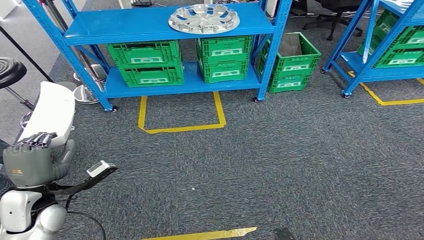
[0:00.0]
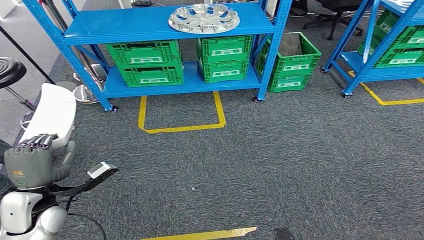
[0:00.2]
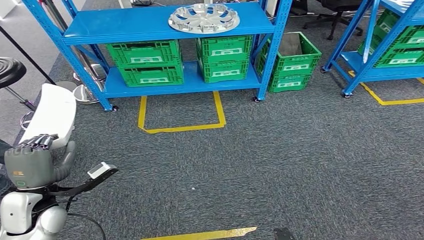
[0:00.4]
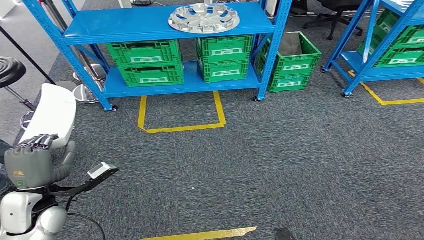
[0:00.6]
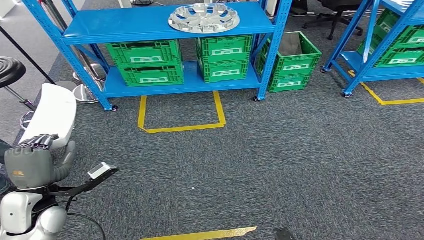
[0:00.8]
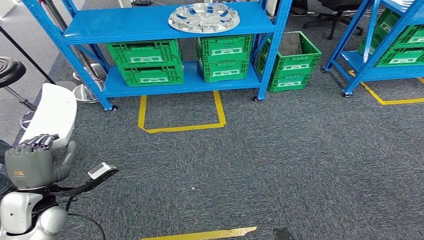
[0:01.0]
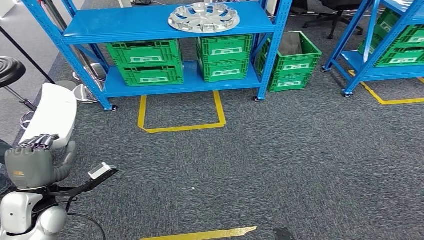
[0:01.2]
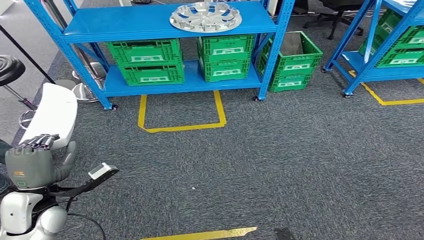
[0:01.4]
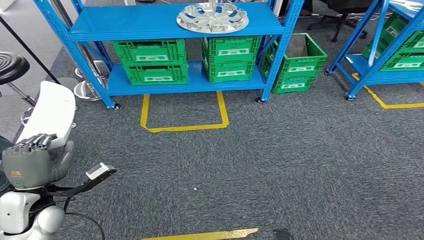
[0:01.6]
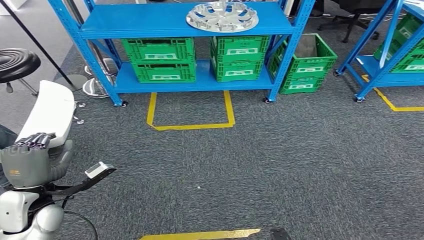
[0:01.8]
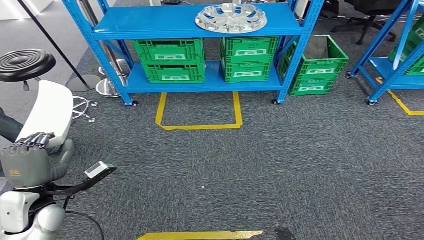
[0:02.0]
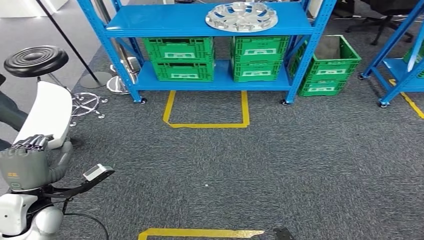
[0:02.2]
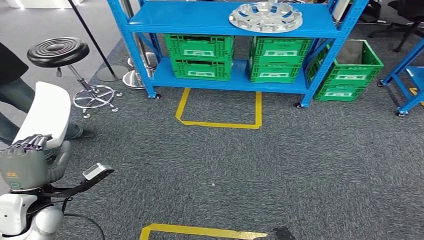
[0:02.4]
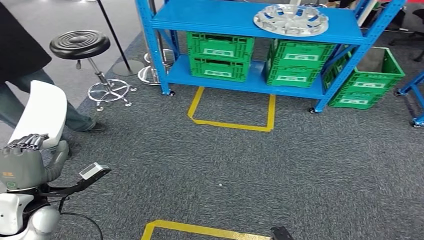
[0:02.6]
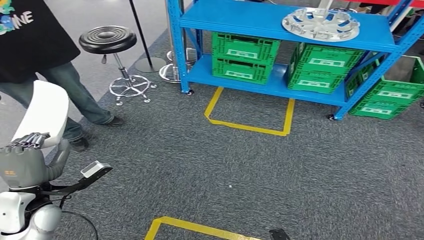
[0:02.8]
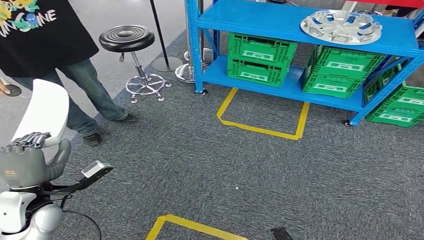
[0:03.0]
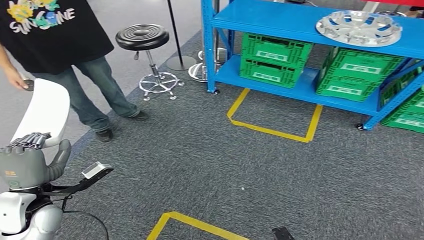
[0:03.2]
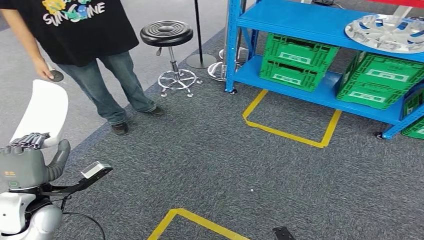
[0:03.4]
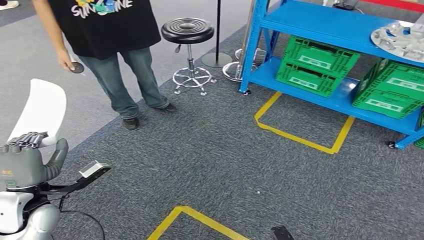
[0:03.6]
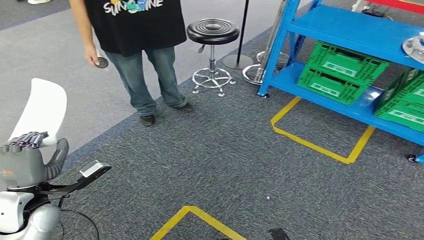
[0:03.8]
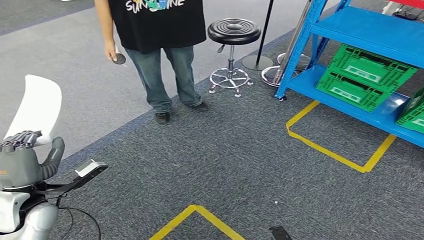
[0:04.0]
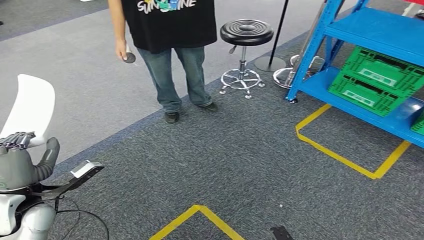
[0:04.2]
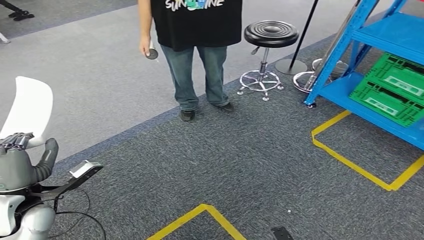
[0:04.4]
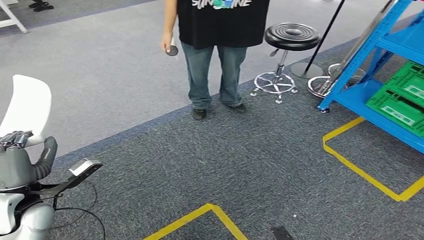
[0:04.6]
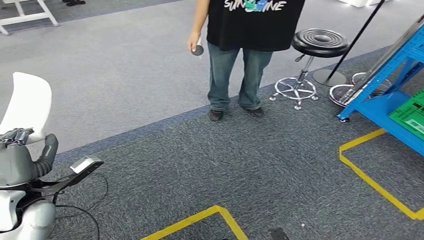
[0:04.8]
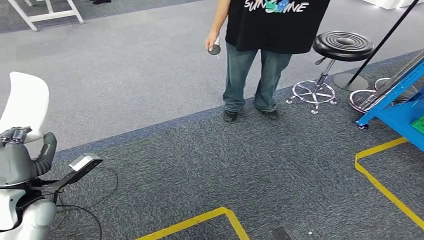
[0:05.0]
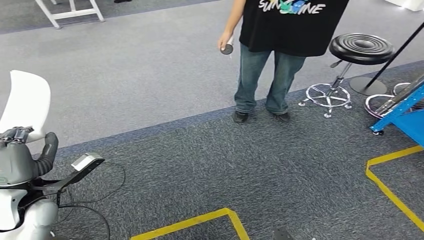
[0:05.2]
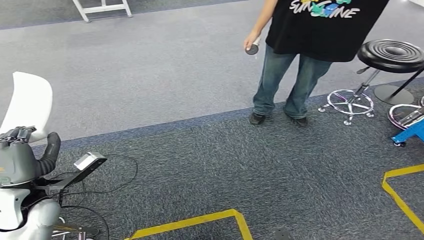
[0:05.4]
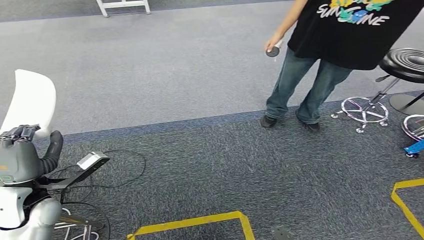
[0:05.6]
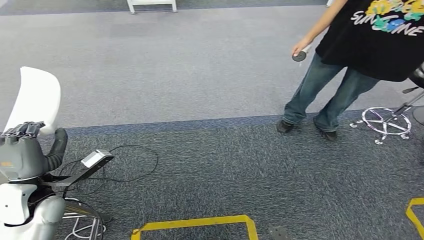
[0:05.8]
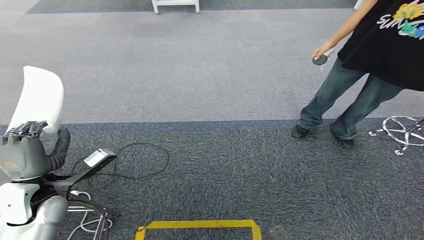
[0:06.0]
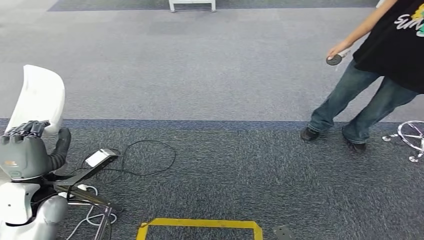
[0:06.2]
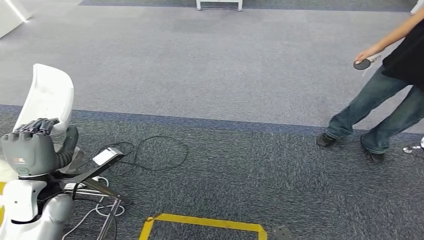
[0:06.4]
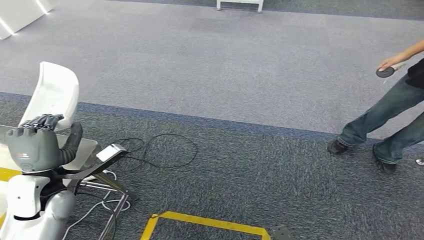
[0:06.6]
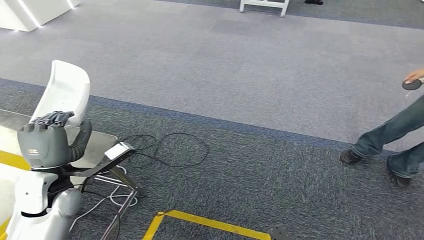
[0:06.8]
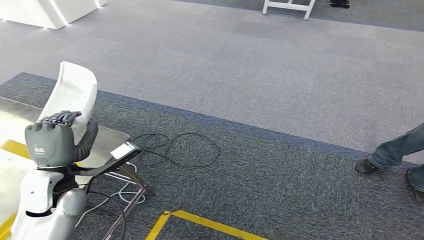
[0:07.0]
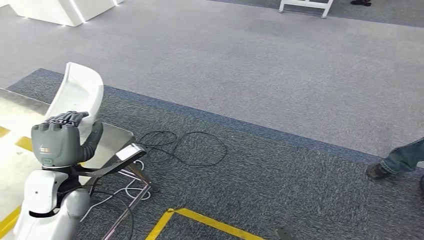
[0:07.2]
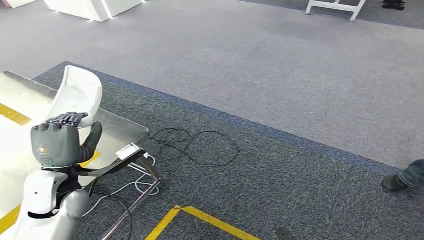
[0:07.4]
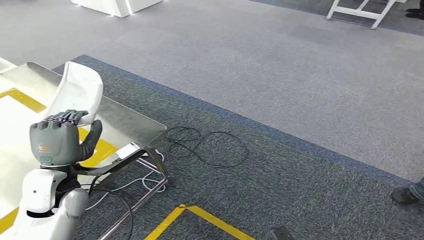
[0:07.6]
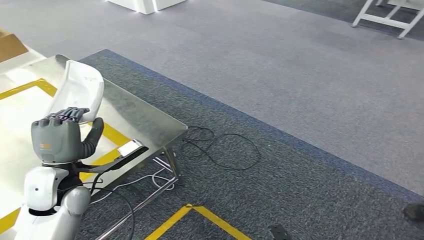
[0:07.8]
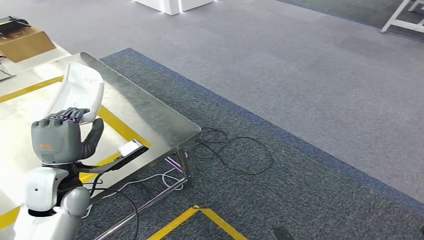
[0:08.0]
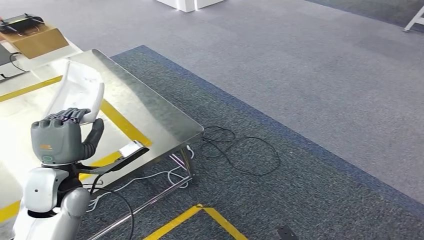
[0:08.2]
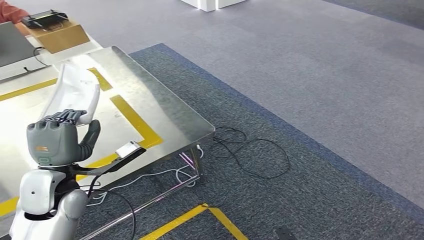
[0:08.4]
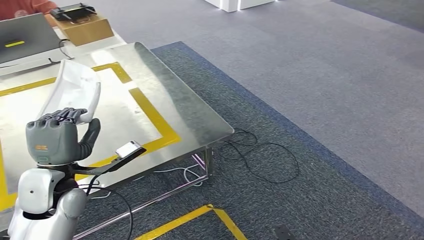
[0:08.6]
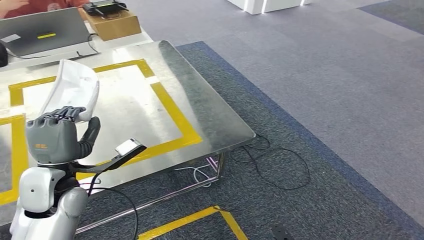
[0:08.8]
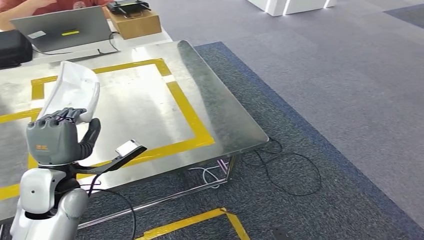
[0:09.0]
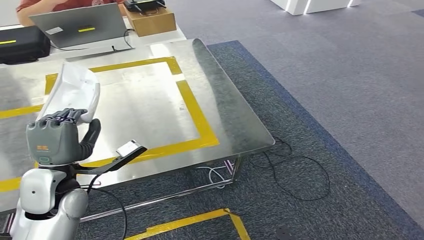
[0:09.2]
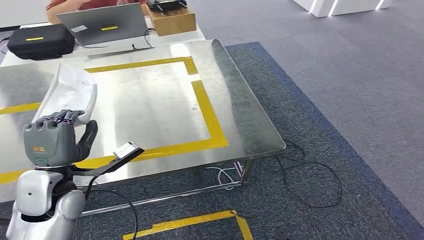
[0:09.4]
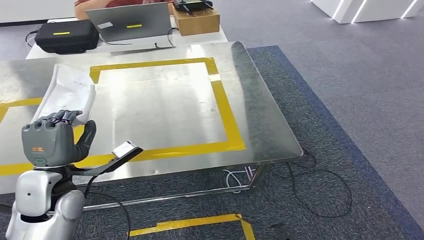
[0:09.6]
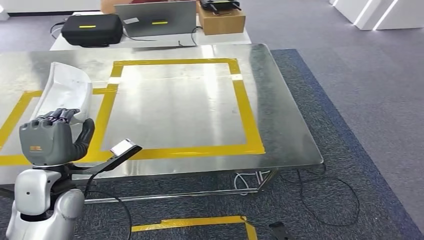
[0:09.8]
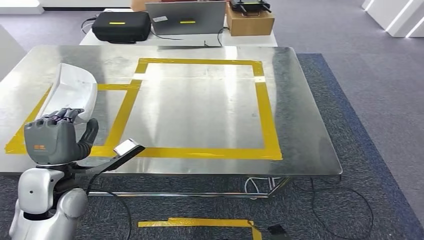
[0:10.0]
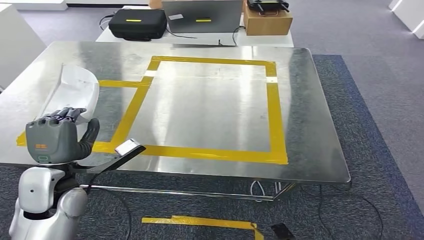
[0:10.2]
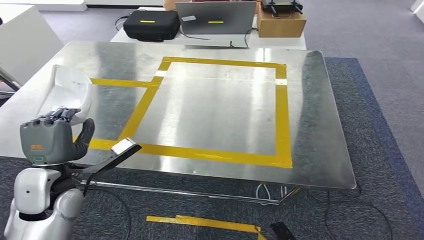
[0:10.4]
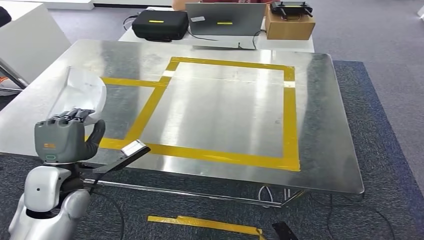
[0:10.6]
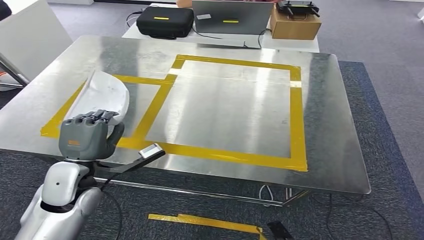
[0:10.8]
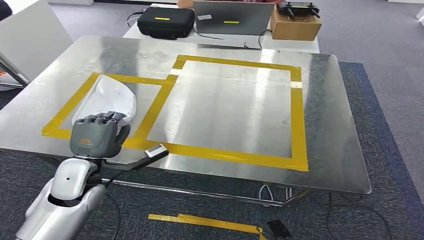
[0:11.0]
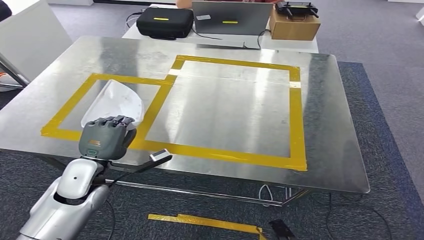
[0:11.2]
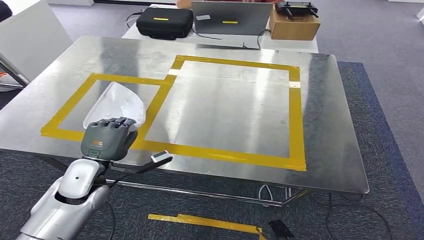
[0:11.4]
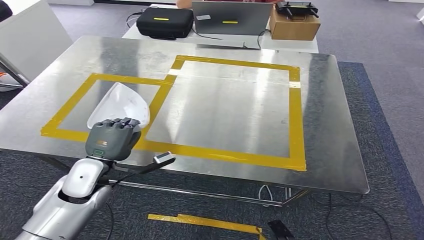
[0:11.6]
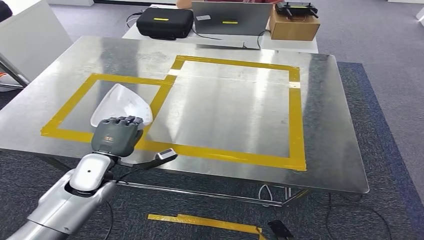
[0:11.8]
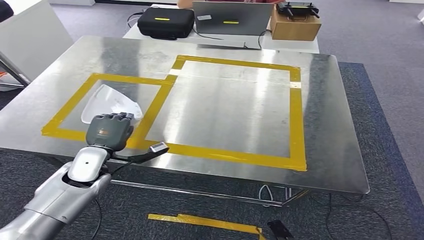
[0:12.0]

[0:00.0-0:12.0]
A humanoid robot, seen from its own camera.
Step, 0:00.0 to 0:08.0: Move the small component to the workbench.
0:00.0 to 0:01.6: Both hands stay about where they are.

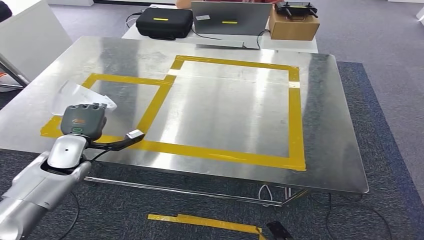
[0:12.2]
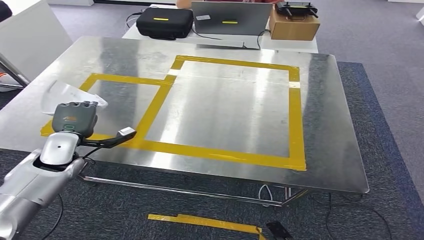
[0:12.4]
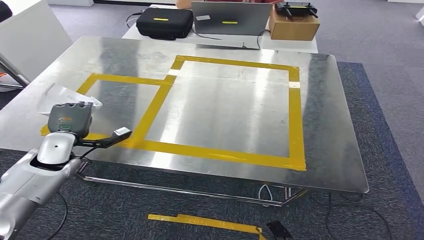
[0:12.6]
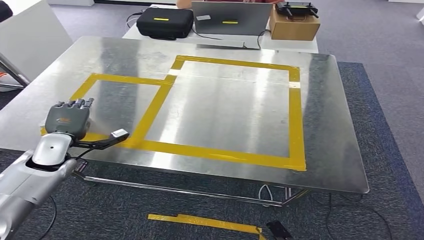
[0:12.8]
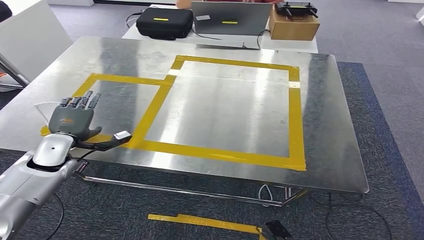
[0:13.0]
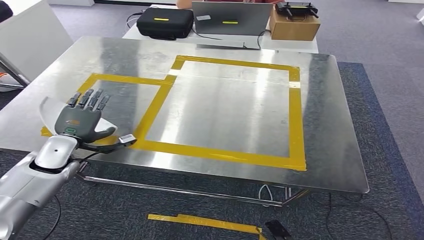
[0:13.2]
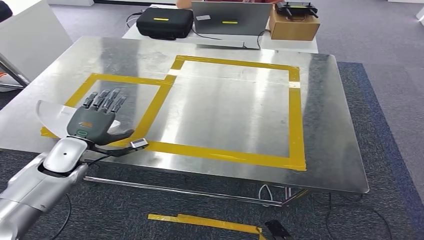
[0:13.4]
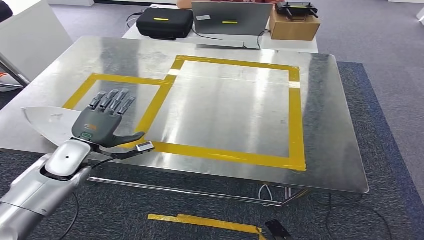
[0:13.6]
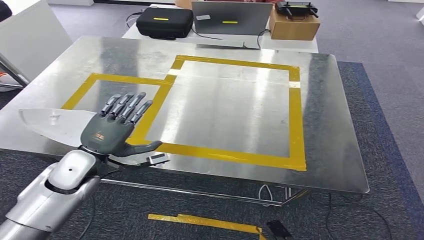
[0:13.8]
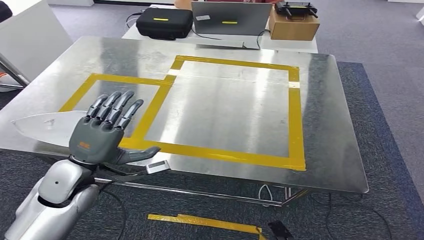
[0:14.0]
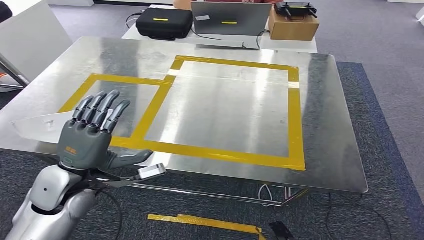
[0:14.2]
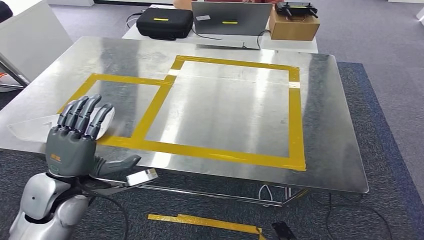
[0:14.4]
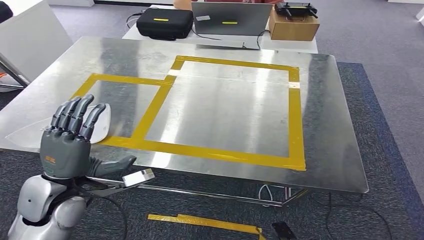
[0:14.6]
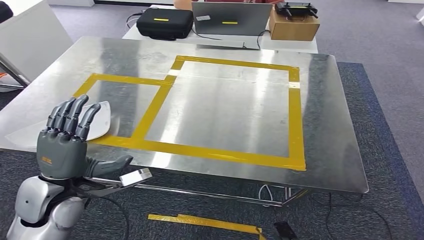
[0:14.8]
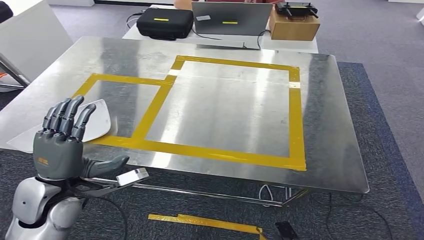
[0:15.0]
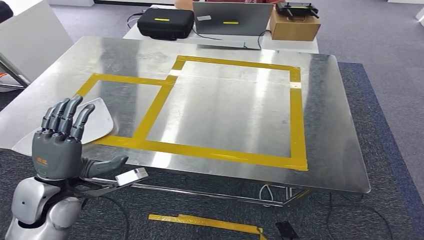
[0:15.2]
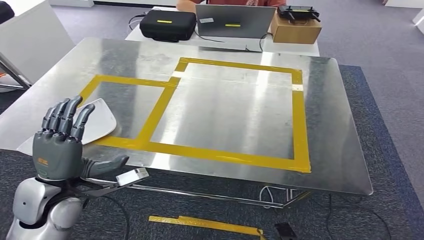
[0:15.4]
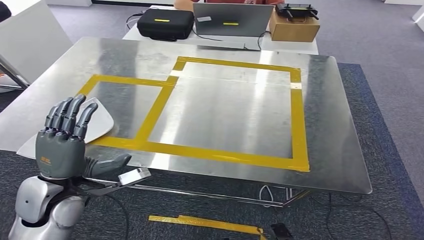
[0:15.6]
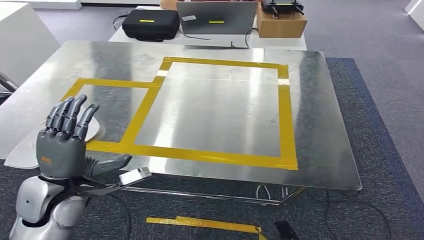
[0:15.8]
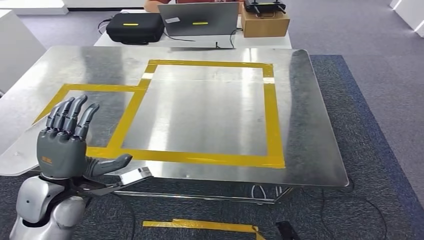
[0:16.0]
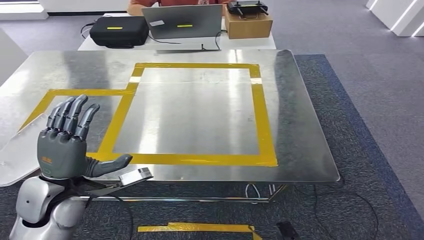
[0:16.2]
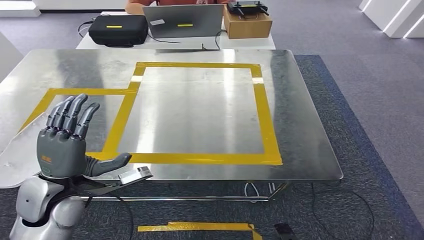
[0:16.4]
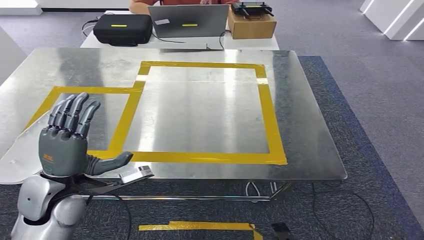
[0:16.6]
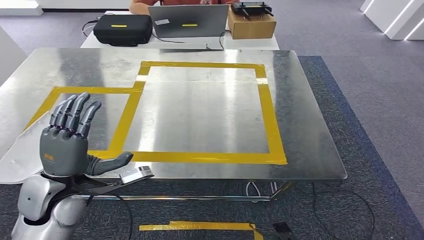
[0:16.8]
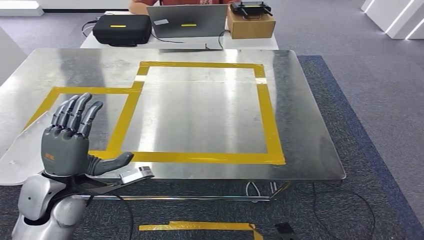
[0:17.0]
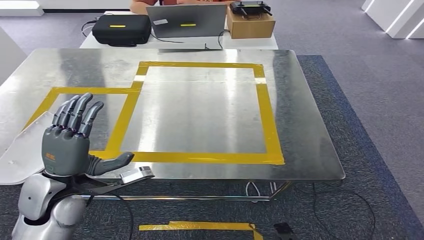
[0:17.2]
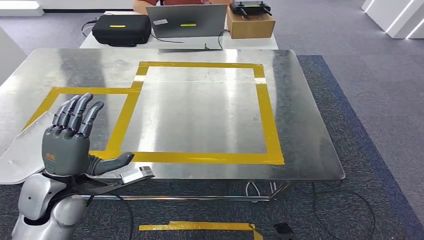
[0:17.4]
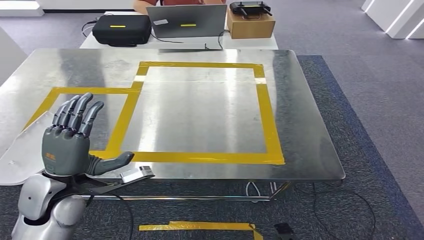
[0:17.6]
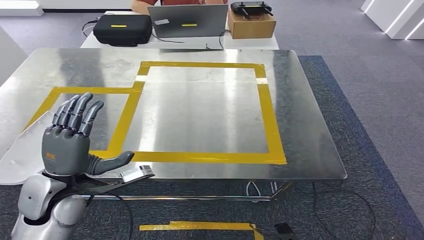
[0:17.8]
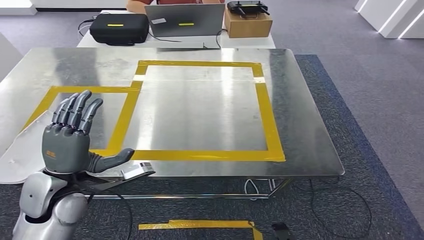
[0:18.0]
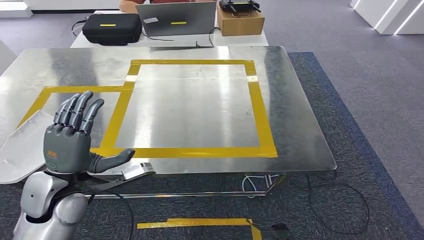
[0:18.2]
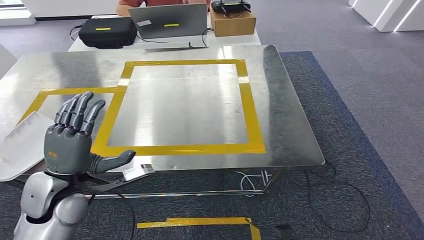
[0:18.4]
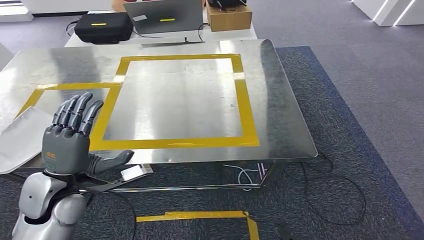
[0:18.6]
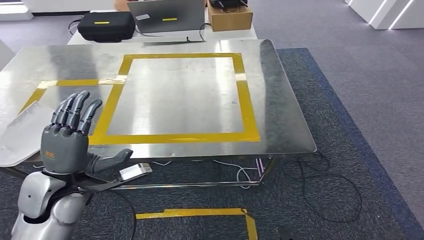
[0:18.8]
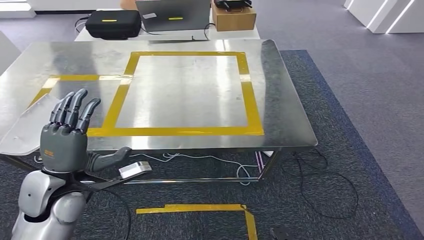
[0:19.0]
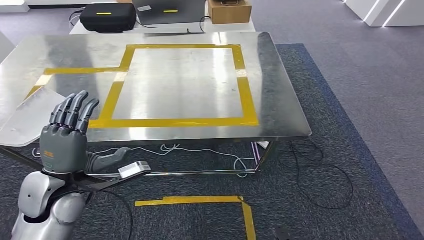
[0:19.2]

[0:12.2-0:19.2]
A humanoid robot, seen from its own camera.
0:12.2 to 0:13.6: The hands stay close to where they were, moving slightly.
0:13.6 to 0:15.0: The left hand goes approximately 10 cm backward.
0:16.4 to 0:17.8: Neither hand changes place.
